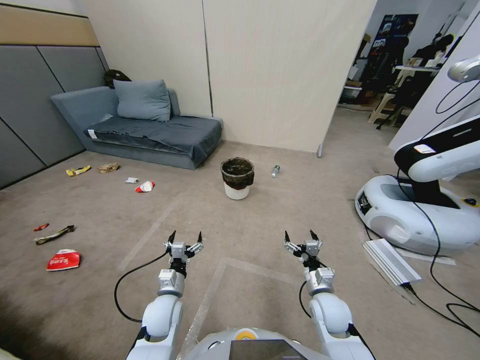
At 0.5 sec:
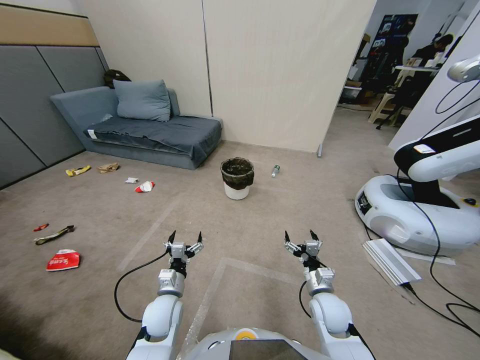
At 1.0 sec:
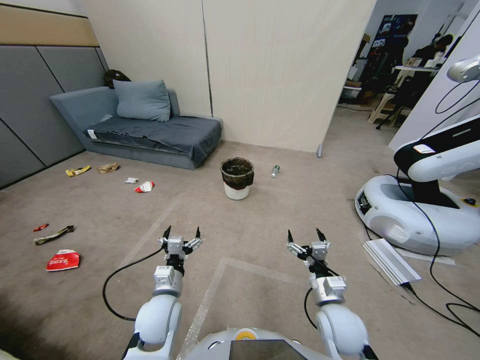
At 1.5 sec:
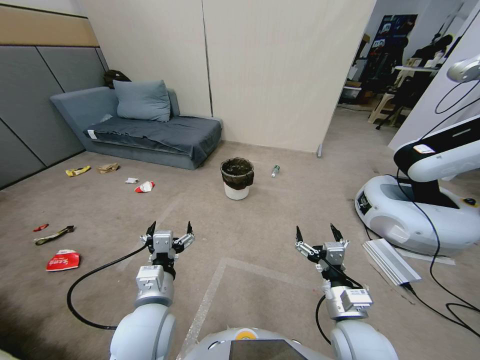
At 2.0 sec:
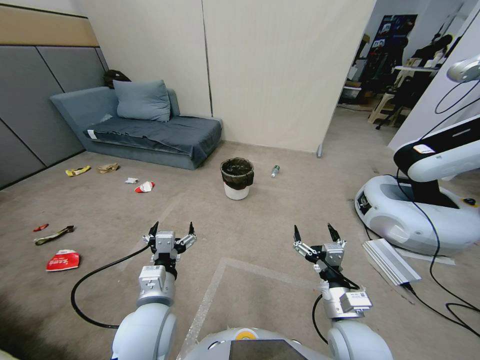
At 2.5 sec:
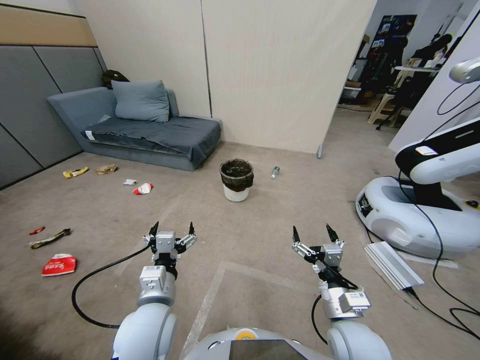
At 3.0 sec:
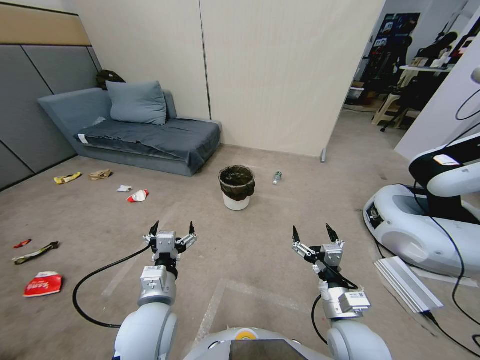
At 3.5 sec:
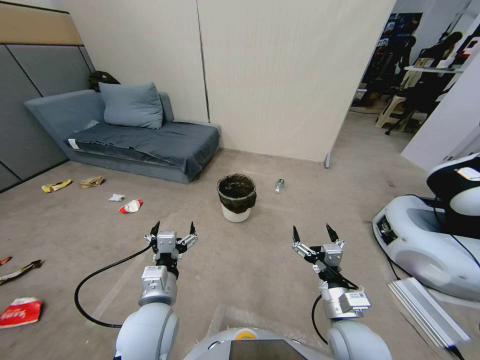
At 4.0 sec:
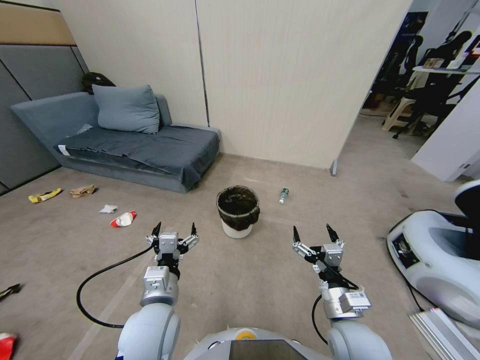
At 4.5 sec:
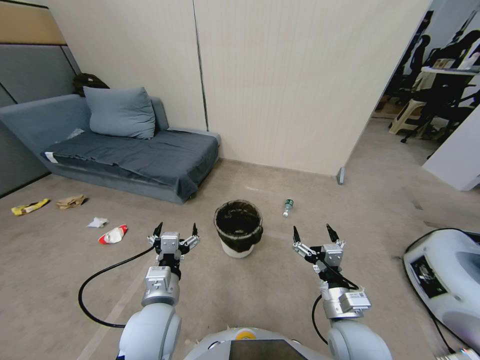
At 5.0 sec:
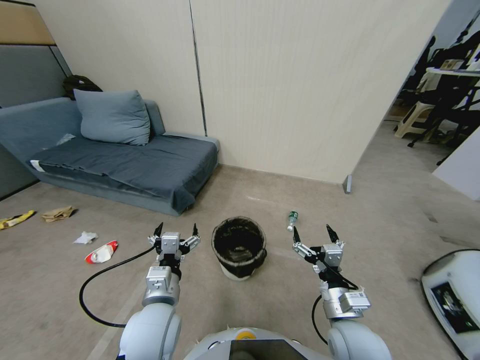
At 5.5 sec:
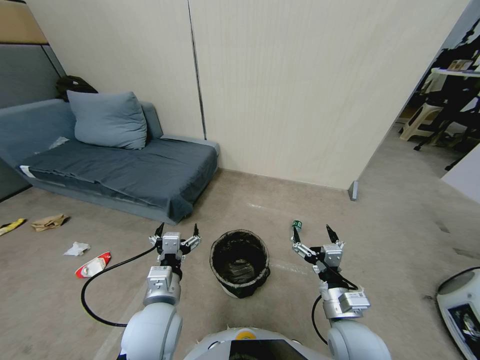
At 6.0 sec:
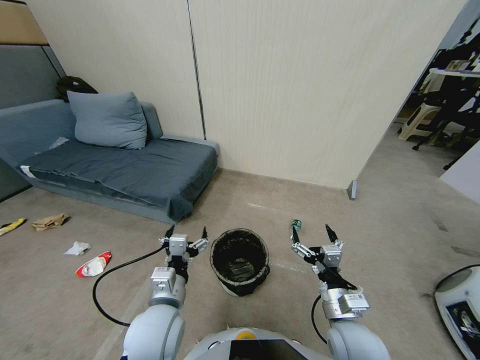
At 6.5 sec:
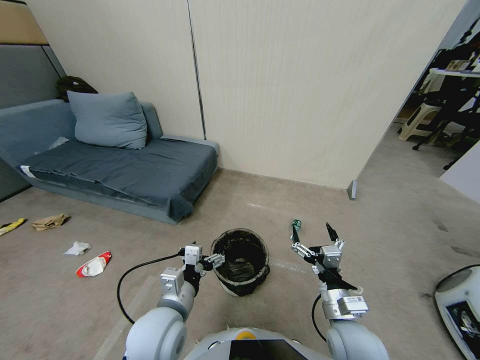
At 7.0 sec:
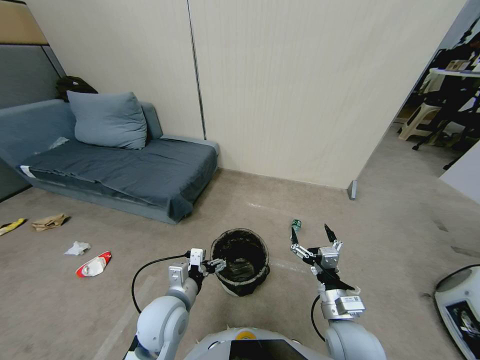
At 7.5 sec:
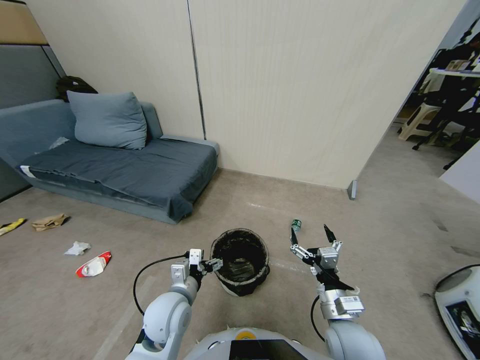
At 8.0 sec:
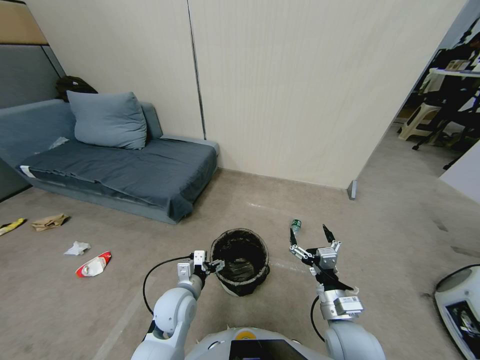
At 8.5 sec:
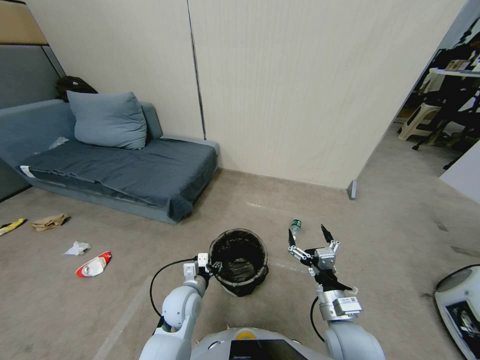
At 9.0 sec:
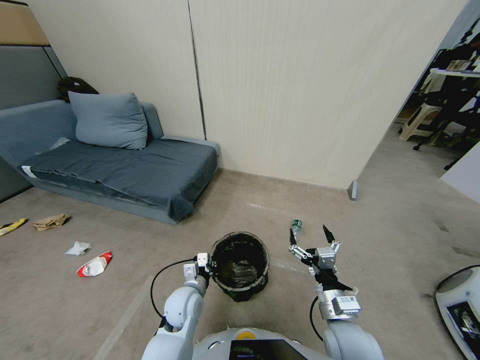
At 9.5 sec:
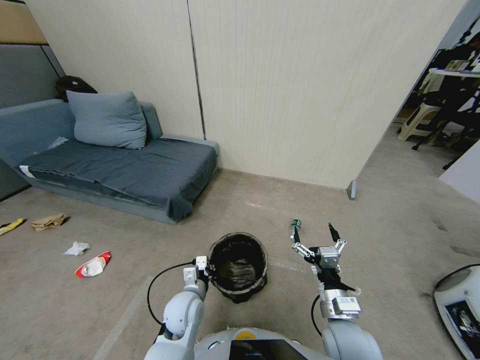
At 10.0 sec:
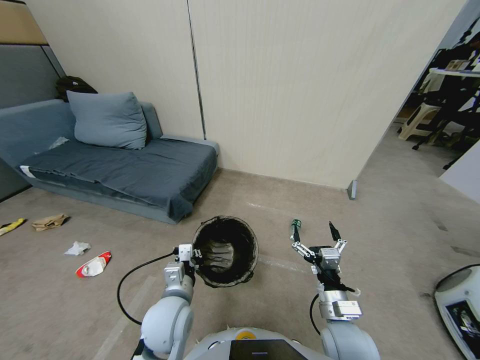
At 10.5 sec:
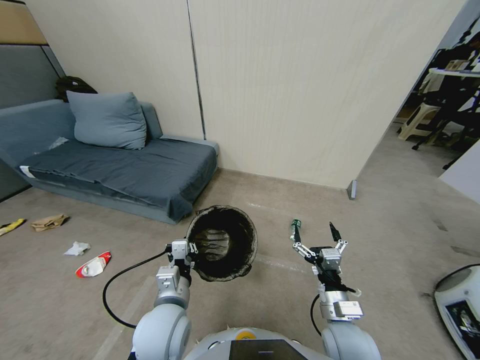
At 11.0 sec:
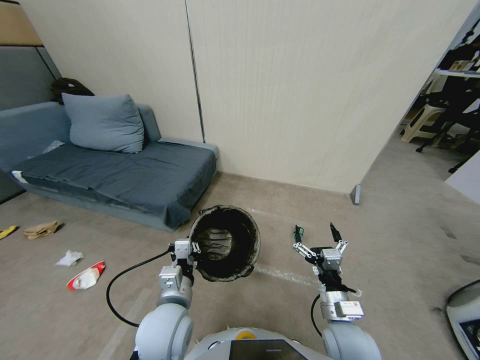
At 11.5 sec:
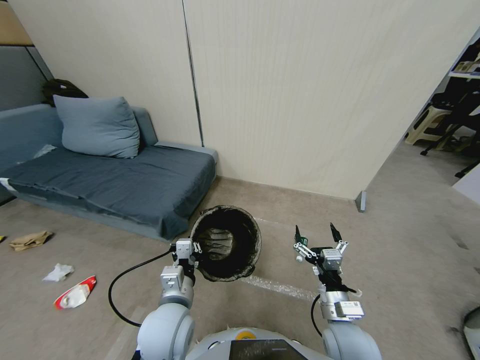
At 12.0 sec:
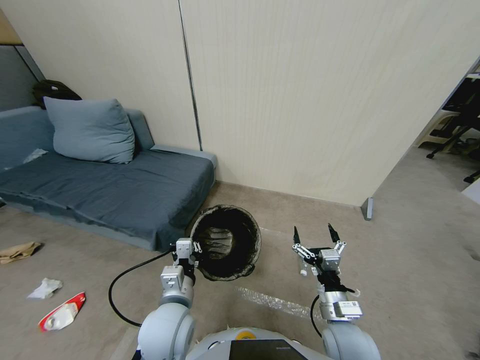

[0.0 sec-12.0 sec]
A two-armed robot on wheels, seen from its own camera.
Task of the whole recording: Pick up the trash bin, then pick up the garbage from the floor and place it into the trash bin.
6.0 sec to 8.0 sec: The left gripper is displaced downward and forward by approximately 10 cm.
8.0 sec to 10.0 sec: The left gripper is displaced upward and backward by approximately 10 cm, and closes its fingers.

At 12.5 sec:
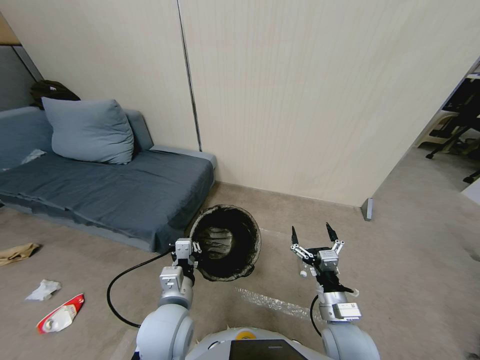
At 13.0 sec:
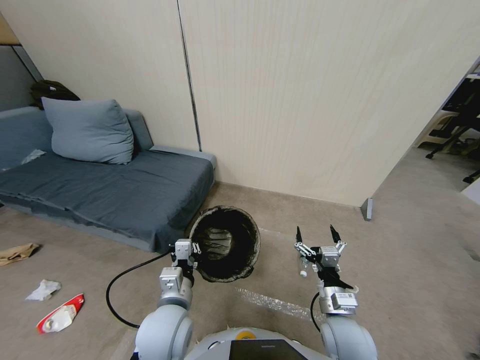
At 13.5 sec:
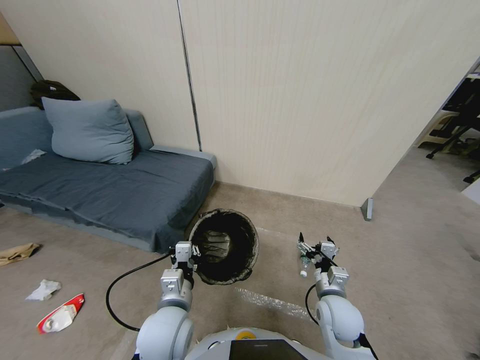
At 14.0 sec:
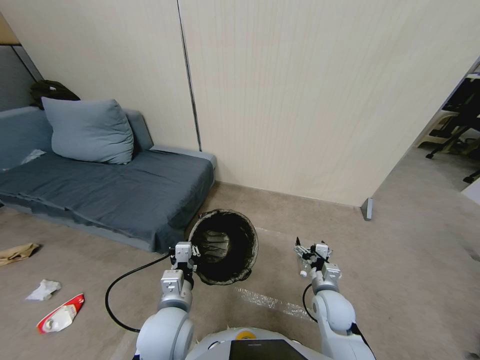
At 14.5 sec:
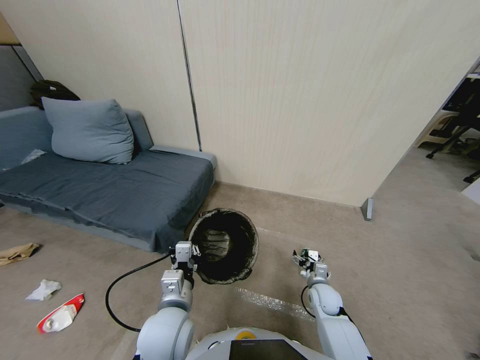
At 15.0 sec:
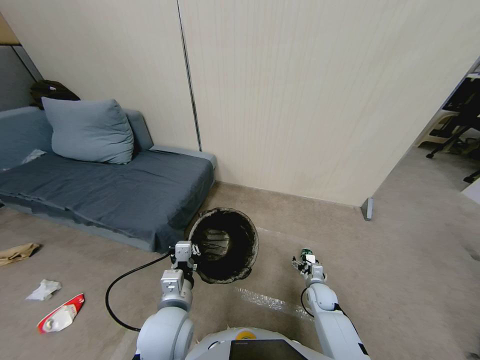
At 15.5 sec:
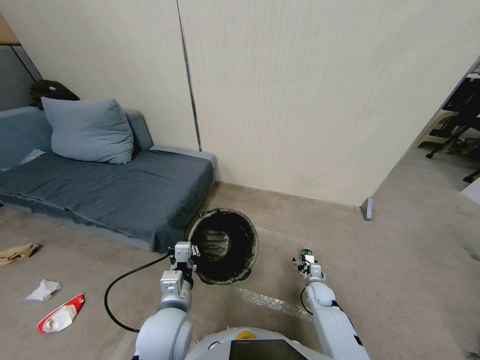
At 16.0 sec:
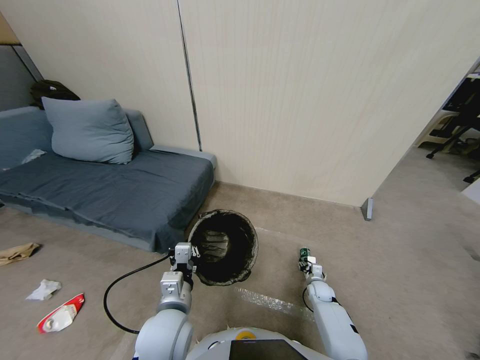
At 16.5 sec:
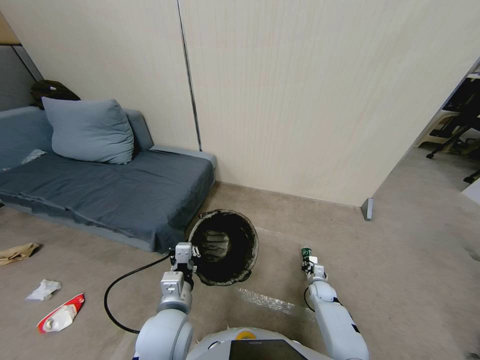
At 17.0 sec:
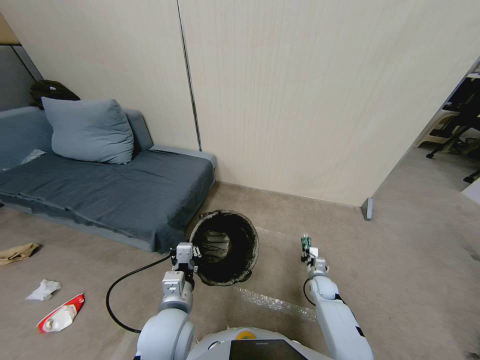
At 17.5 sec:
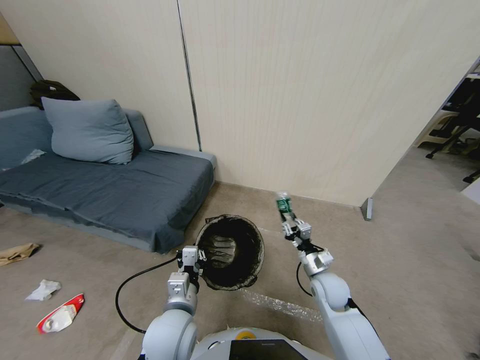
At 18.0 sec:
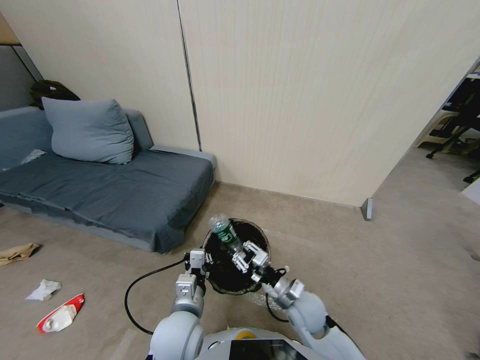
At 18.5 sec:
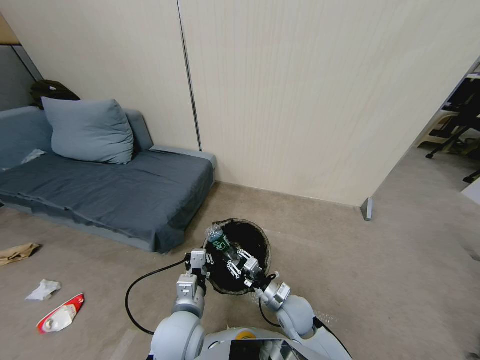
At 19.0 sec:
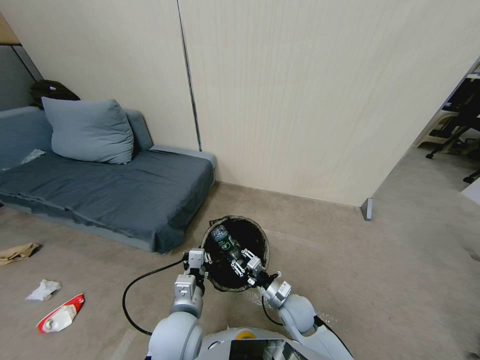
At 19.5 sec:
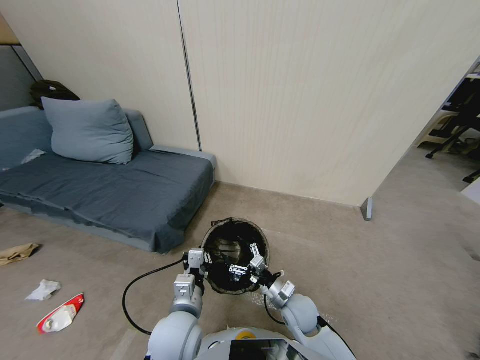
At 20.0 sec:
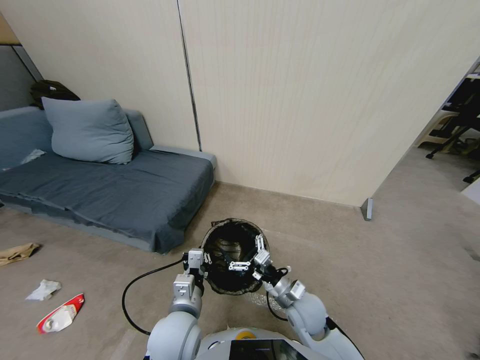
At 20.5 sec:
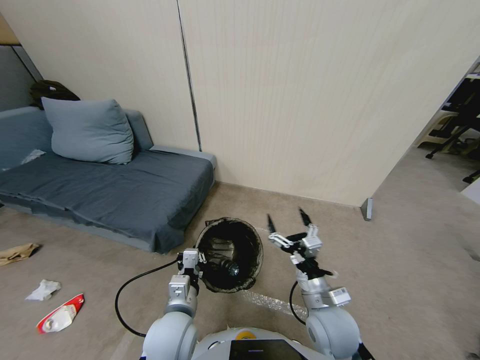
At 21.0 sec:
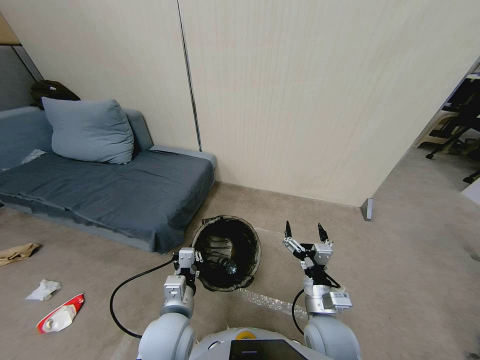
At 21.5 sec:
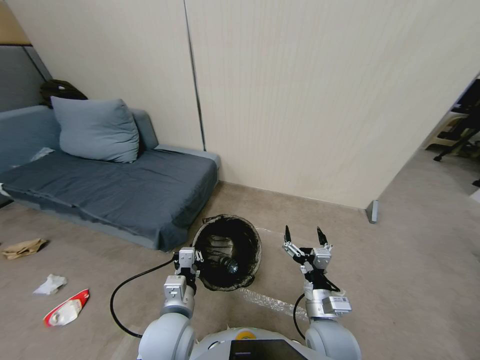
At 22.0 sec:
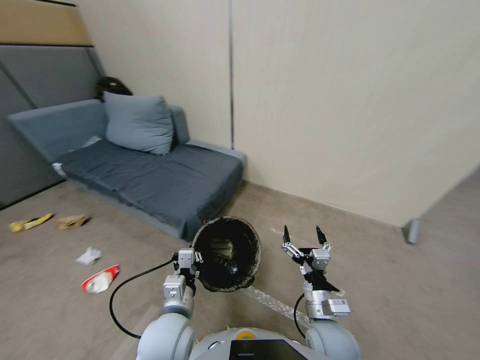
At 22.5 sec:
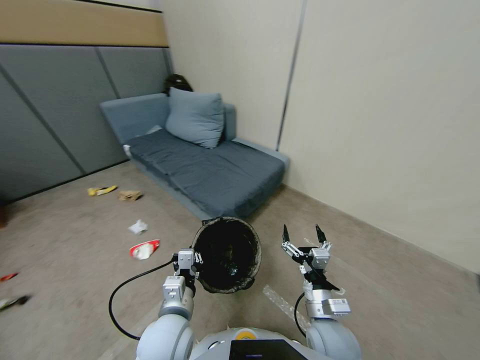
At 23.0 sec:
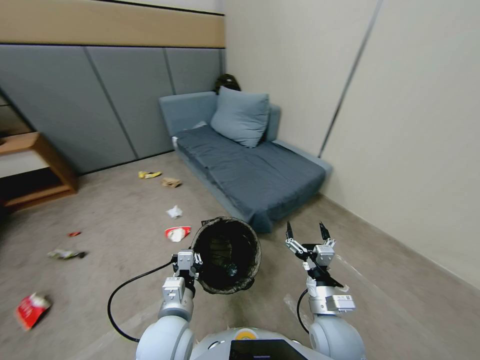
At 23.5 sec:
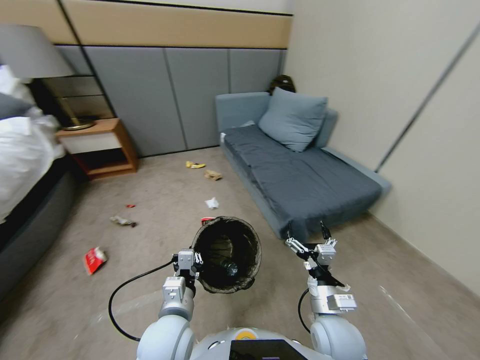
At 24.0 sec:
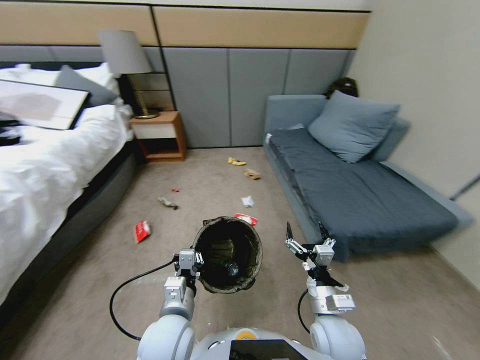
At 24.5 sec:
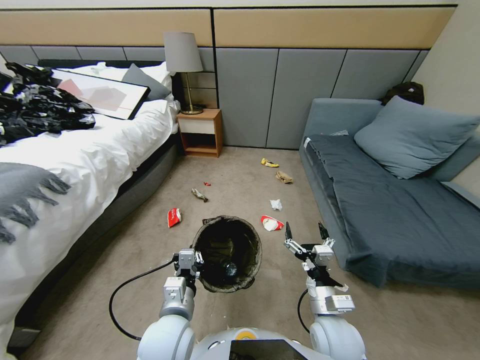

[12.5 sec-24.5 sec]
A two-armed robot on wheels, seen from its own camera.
Task of the whole recording: Pick up the trash bin, then pick up the garbage from the floor and place it into the trash bin.
12.5 sec to 14.5 sec: The right gripper moves downward and forward, some 20 cm.
14.5 sec to 16.5 sec: The right gripper shifts about 10 cm downward and to the right, and closes.
16.5 sec to 18.5 sec: The right gripper goes roughly 25 cm to the left, upward and backward.
18.5 sec to 20.5 sec: The right gripper goes approximately 15 cm upward and backward, and opens its fingers.

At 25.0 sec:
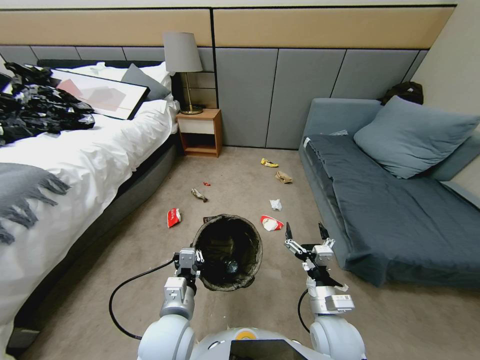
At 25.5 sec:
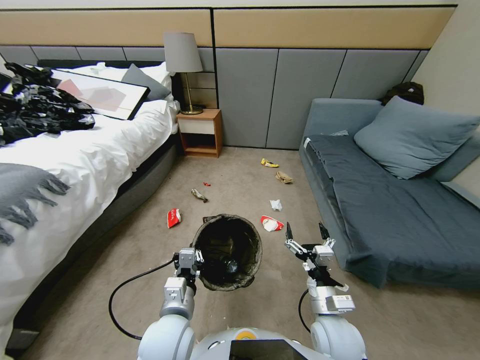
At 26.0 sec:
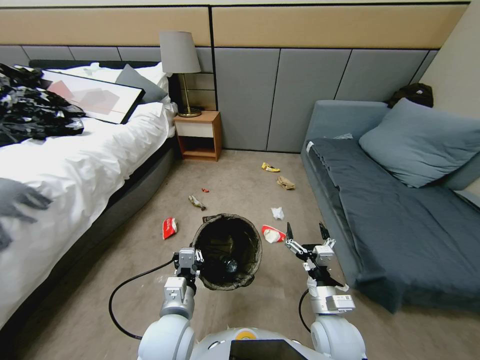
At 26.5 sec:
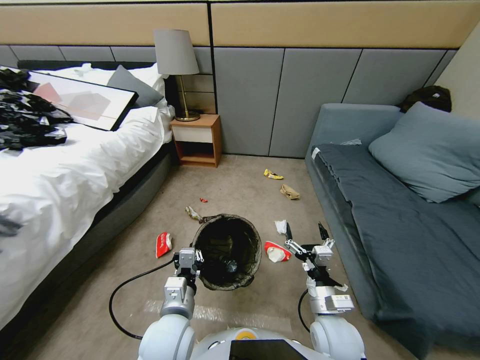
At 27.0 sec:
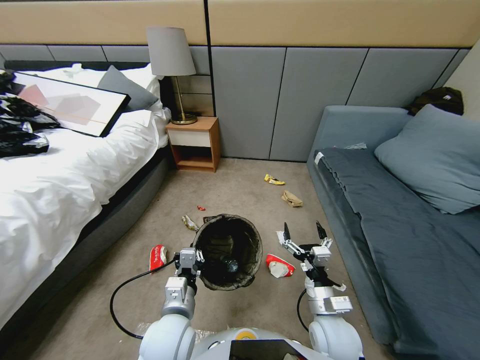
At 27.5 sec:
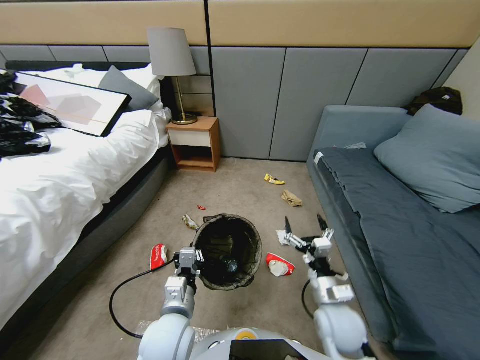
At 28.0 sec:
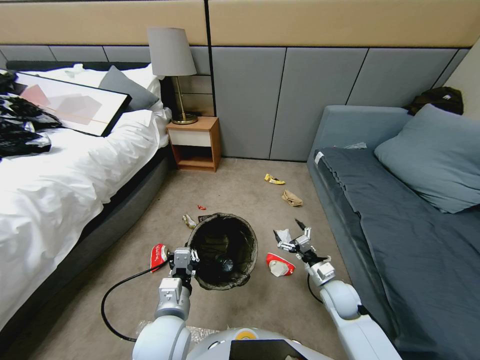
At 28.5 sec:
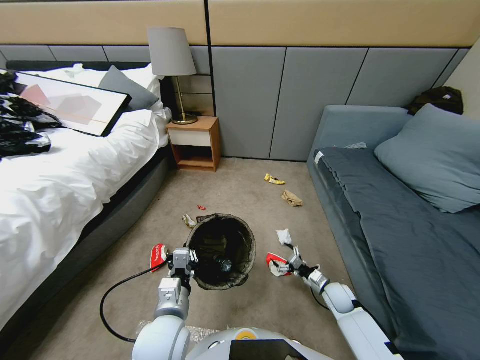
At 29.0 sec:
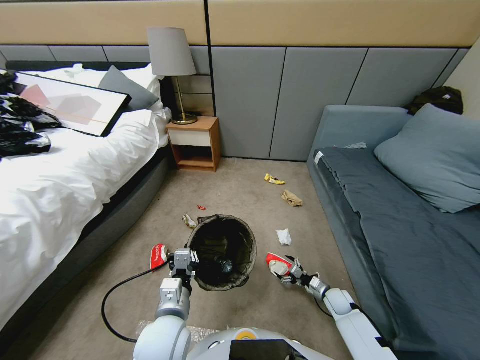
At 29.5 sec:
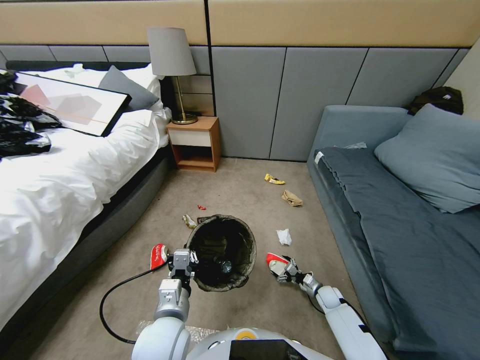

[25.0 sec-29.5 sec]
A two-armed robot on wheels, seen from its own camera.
Task of the whole recording: Pick up the trash bin, then pick up the garbage from the floor and place it into the trash bin.
27.0 sec to 29.5 sec: The right gripper is displaced downward, to the right and forward by about 35 cm.
